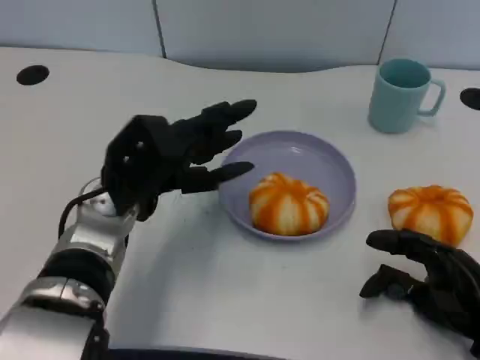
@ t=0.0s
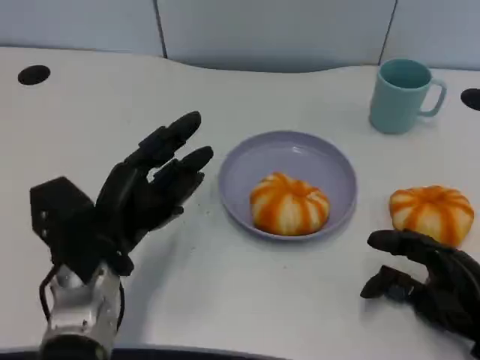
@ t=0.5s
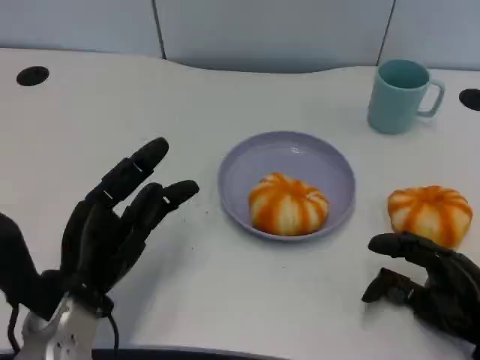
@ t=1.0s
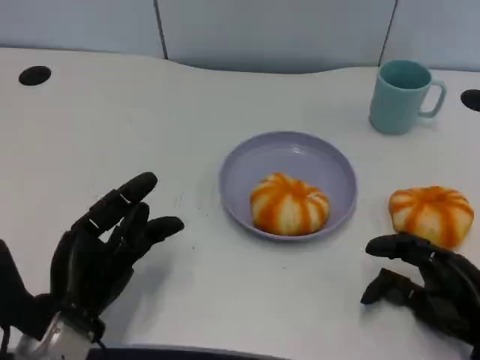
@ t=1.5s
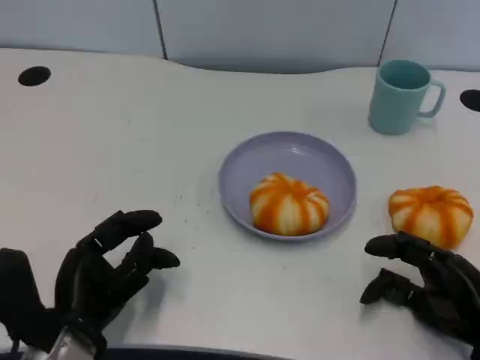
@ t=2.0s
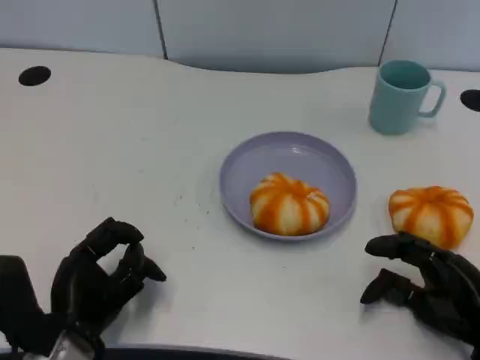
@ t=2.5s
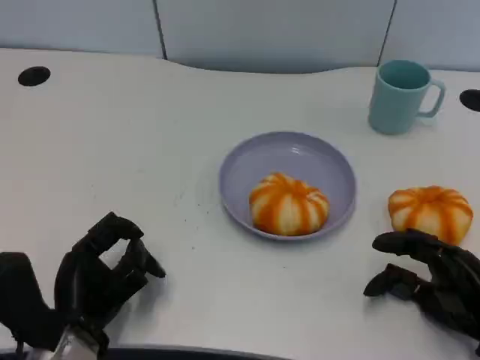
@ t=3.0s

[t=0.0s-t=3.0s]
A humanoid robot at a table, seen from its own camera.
Task of the whole recording: Grasp the bread from the table and place it into the plate.
t=0.0s to t=1.5s: The left hand travels backward, downward and to the left by roughly 15 cm.
t=1.5s to t=3.0s: The hands move only a little.

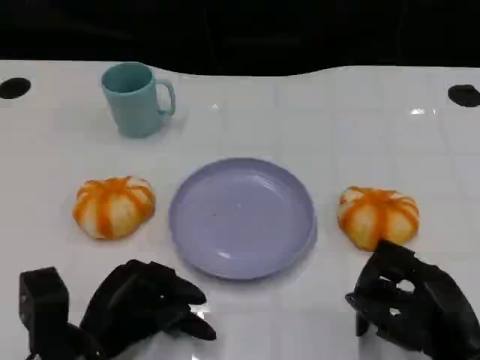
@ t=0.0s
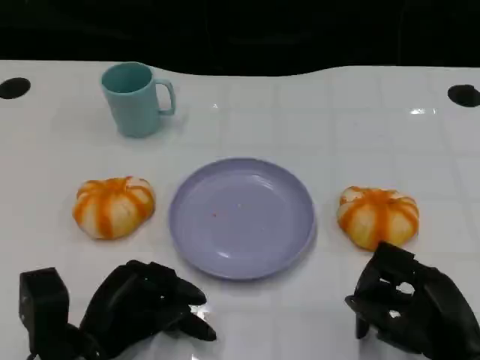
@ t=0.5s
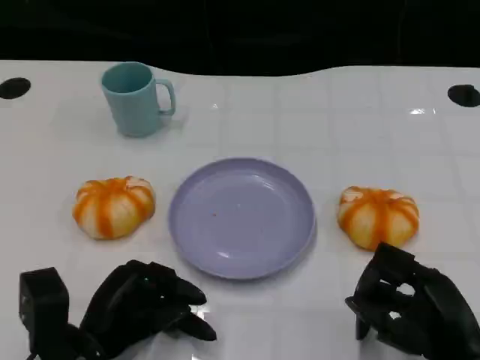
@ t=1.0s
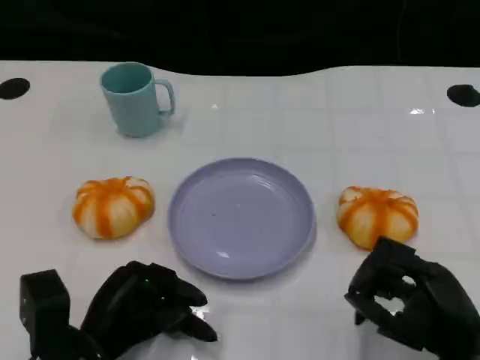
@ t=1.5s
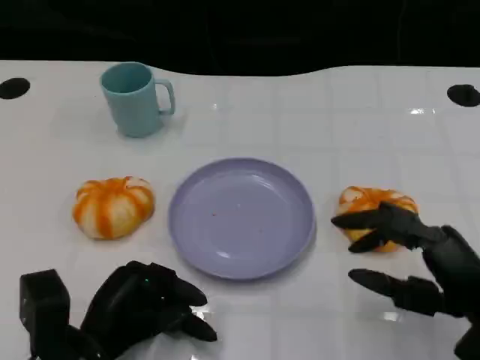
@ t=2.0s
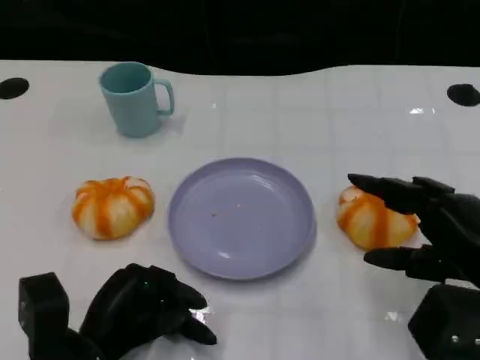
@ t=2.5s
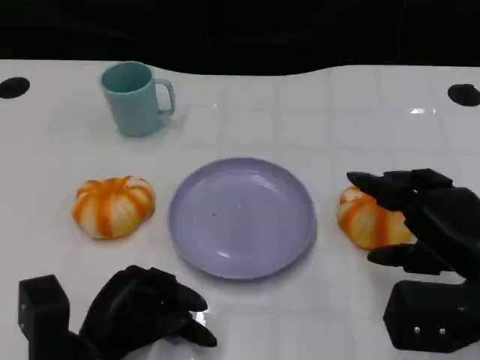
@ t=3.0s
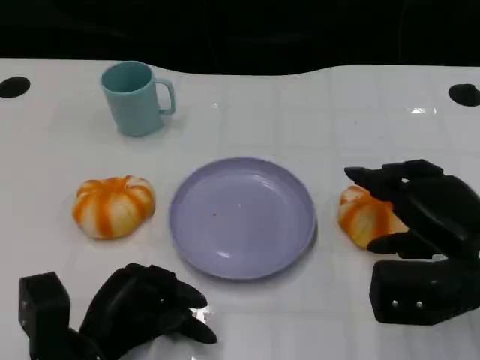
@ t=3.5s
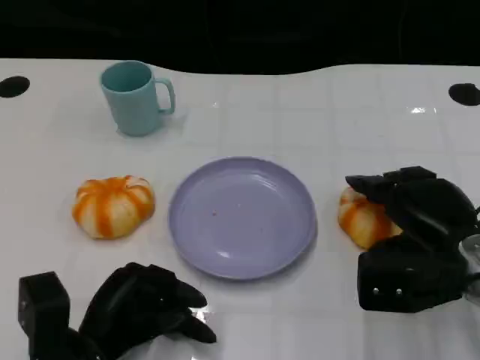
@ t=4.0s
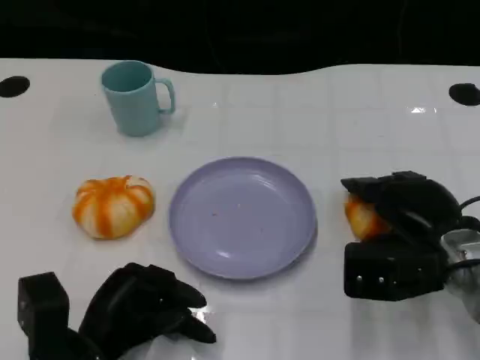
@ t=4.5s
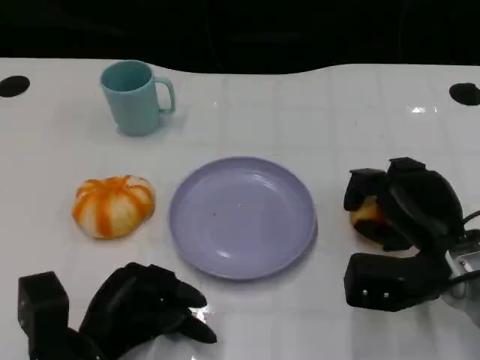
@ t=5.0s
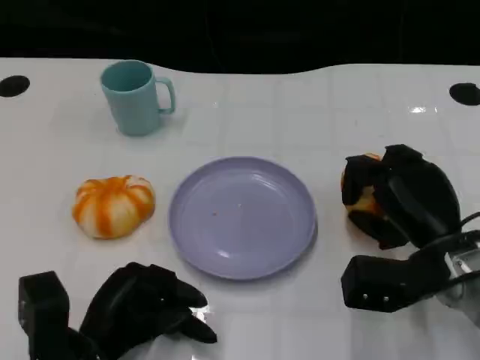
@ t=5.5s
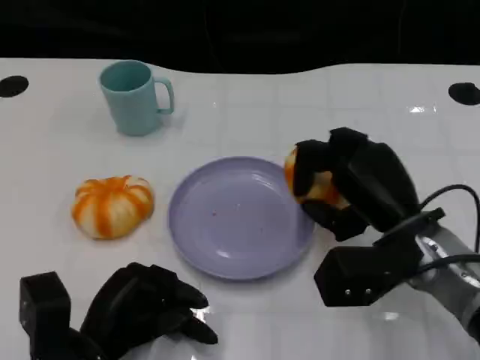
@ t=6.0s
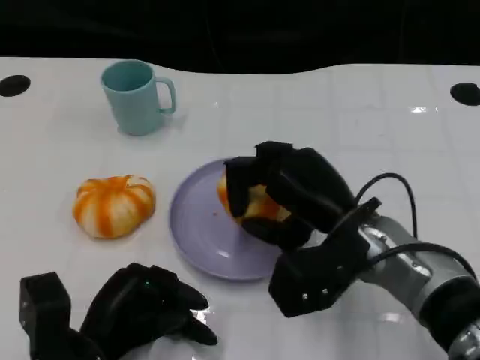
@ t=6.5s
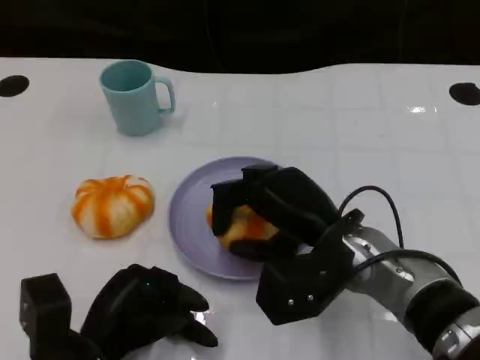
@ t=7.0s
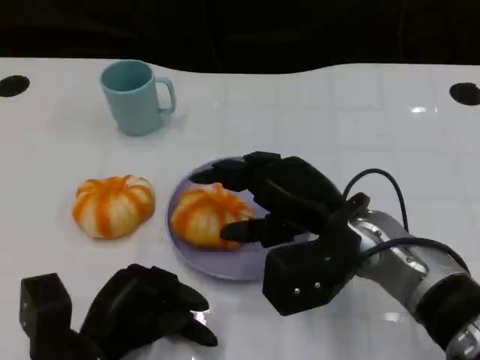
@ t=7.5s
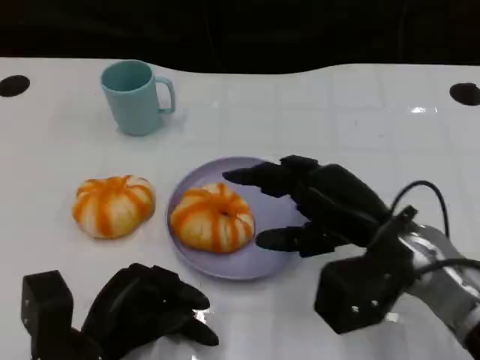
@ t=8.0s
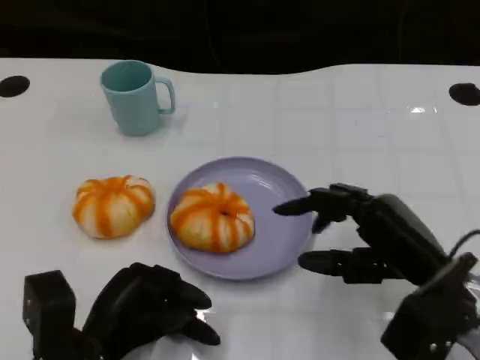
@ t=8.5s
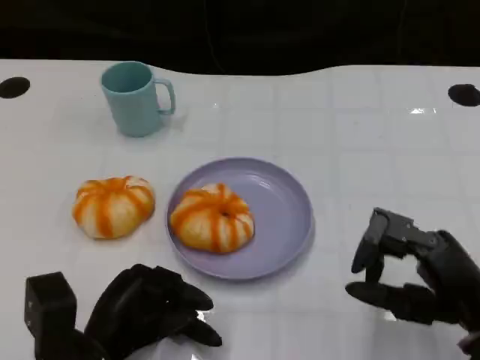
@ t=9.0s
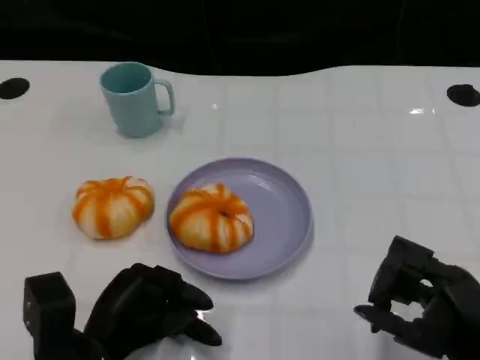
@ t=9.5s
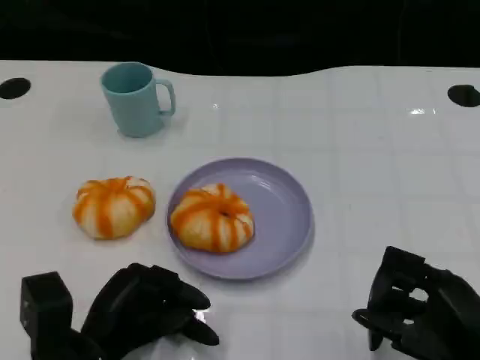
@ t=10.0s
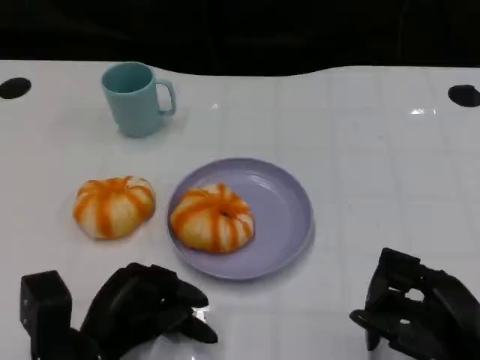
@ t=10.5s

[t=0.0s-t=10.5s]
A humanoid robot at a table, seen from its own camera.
Task of the whole recording: Grasp the bread from the table and place it into the plate.
t=0.0s to t=2.0s: The right hand ends up roughly 5 cm from where it was.
t=2.0s to t=4.0s: The right hand travels forward by about 10 cm.
t=4.0s to t=6.5s: The right hand moves to the left, approximately 10 cm.
t=6.5s to t=8.5s: The right hand moves to the right, approximately 10 cm.
t=8.5s to t=10.5s: The right hand heads backward, covering some 5 cm.

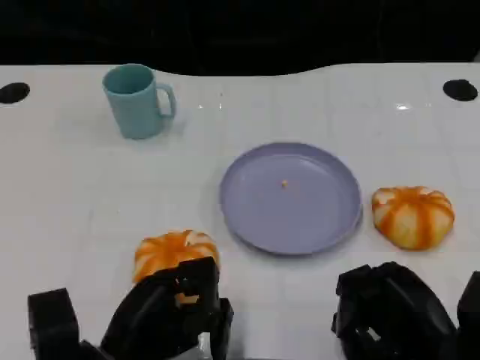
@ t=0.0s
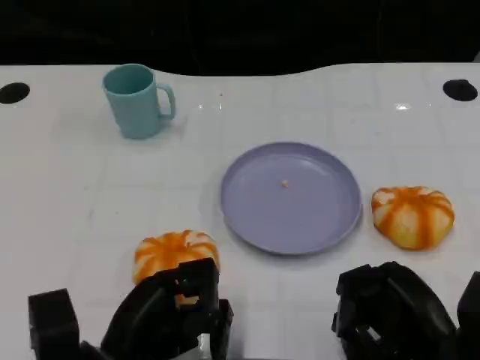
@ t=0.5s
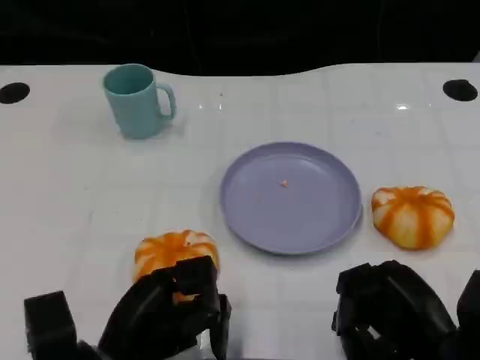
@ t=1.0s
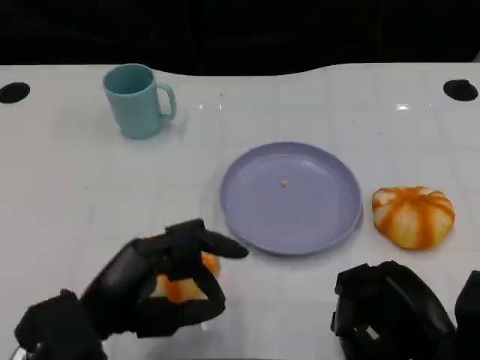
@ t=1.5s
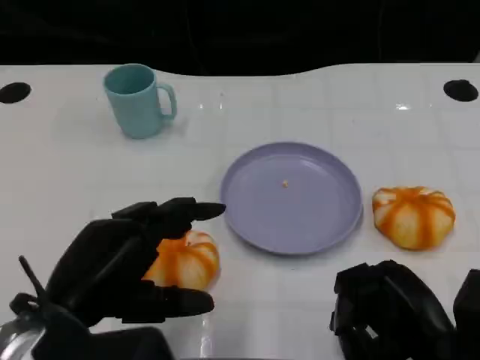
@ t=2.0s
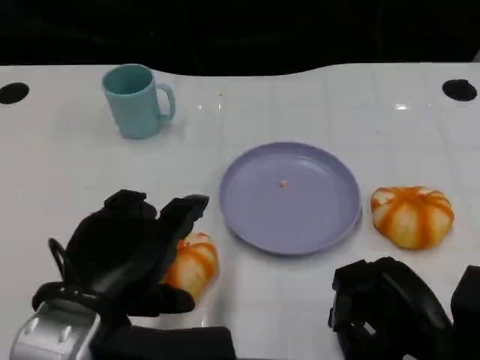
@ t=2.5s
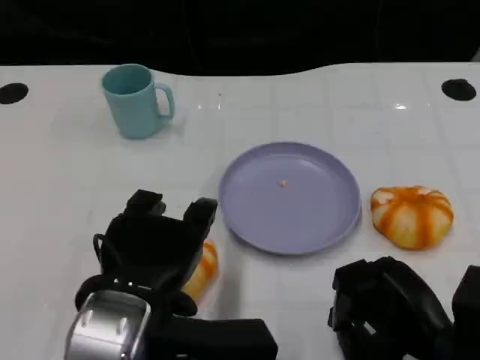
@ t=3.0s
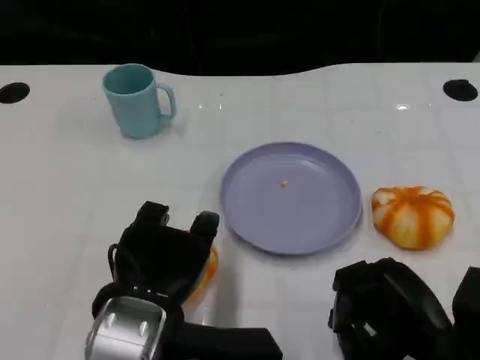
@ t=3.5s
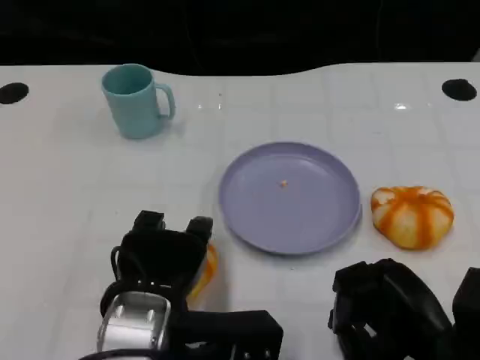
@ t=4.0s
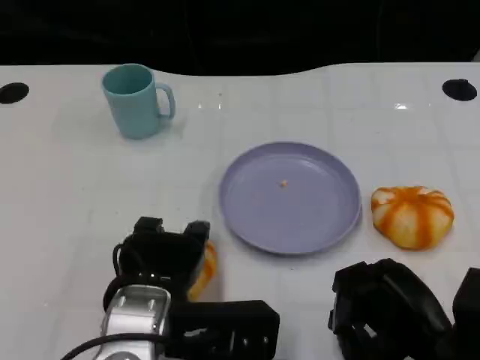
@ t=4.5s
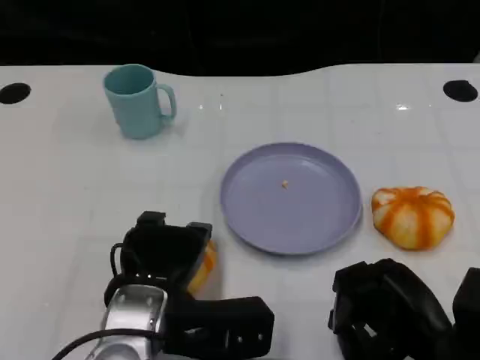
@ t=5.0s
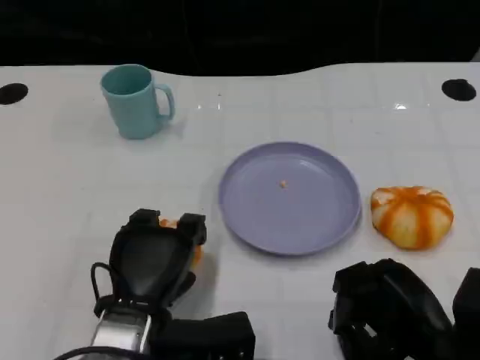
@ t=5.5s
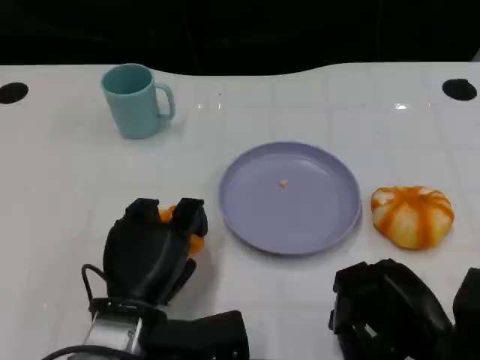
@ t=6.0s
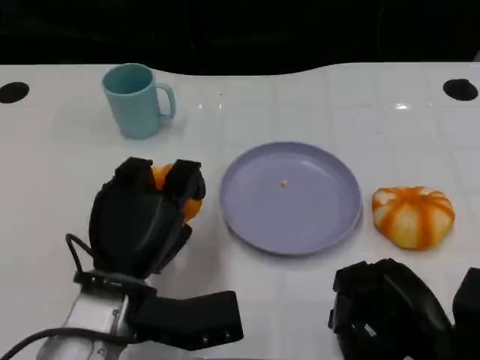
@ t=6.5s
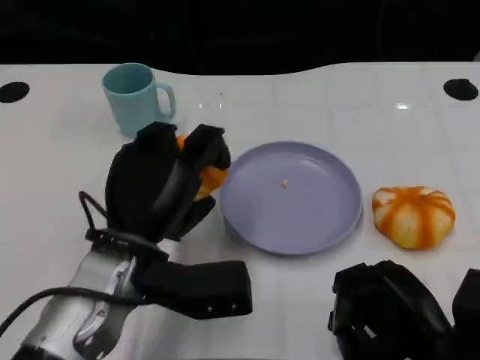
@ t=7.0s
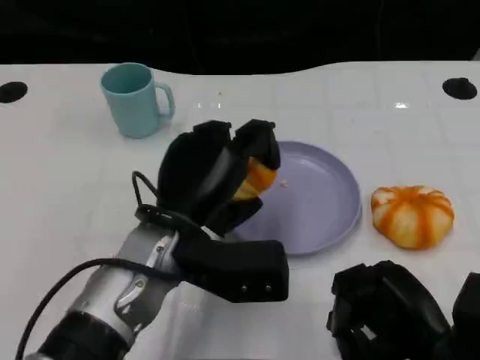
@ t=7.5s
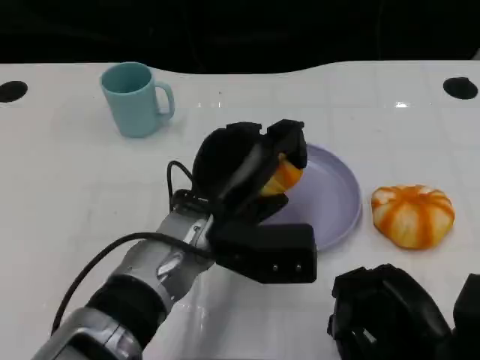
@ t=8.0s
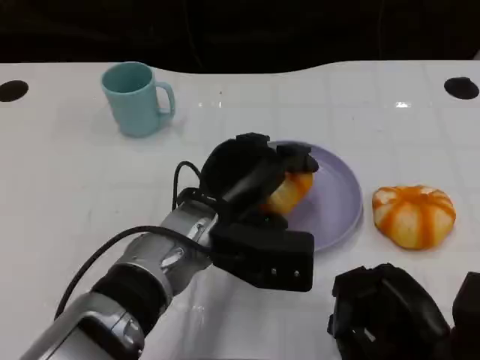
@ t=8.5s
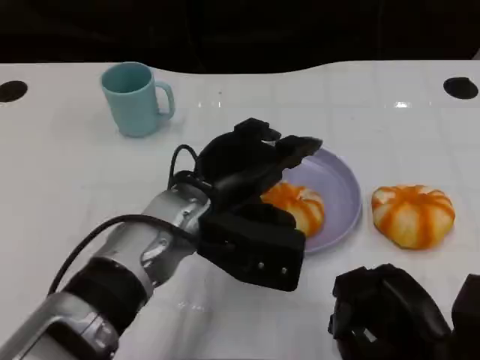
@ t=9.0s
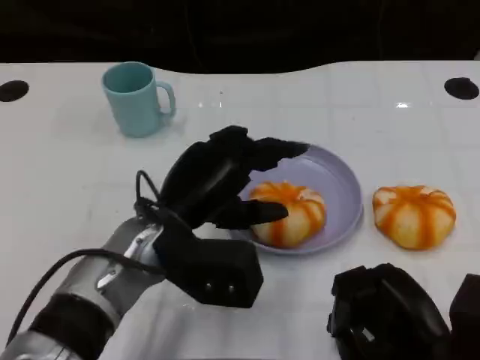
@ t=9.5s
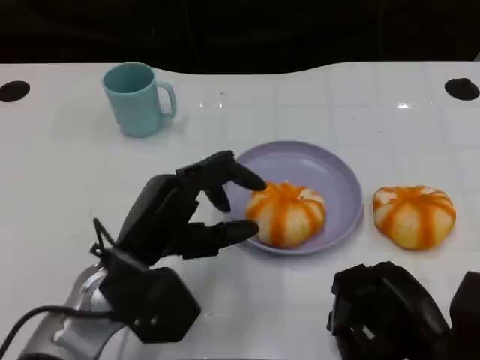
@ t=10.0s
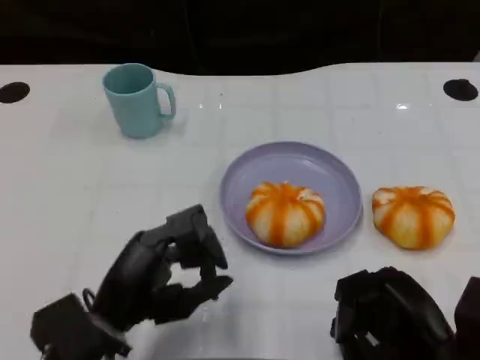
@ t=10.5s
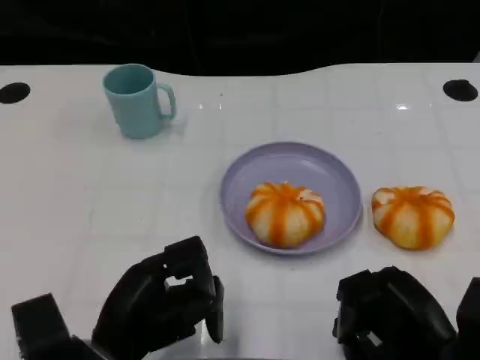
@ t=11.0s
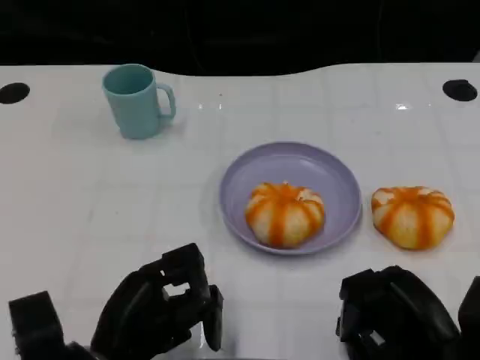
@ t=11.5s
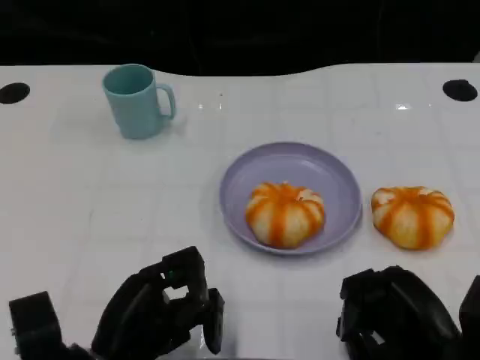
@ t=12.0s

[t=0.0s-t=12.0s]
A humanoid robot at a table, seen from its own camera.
Task of the whole recording: Grasp the bread from the table and place it into the plate.
t=0.0s to t=2.0s: The left hand is displaced upward by some 10 cm.
t=2.0s to t=4.0s: The left hand goes approximately 5 cm to the right.
t=4.0s to t=6.0s: The left hand shifts approximately 5 cm downward.
t=6.0s to t=8.0s: The left hand travels to the right, forward and upward by roughly 10 cm.
t=8.0s to t=10.0s: The left hand moves to the left, roughly 10 cm.
t=10.0s to t=12.0s: The left hand goes some 5 cm backward.
